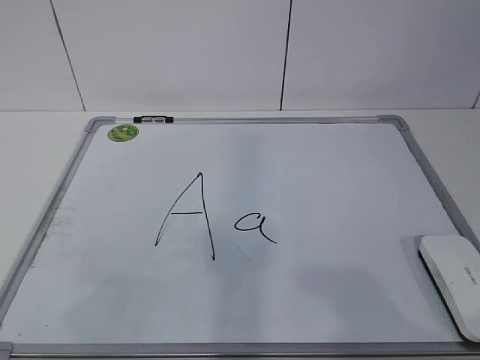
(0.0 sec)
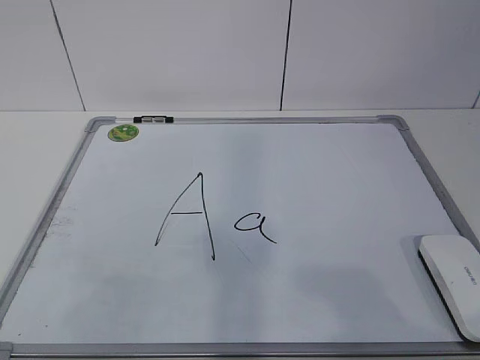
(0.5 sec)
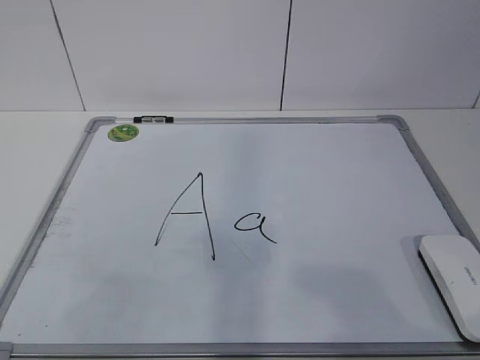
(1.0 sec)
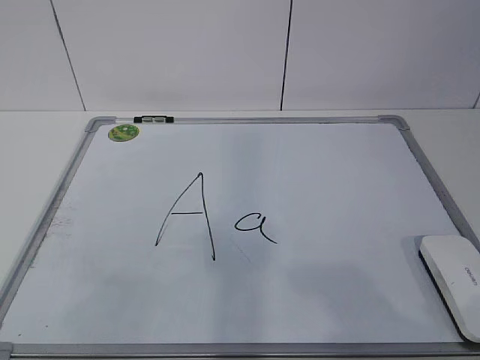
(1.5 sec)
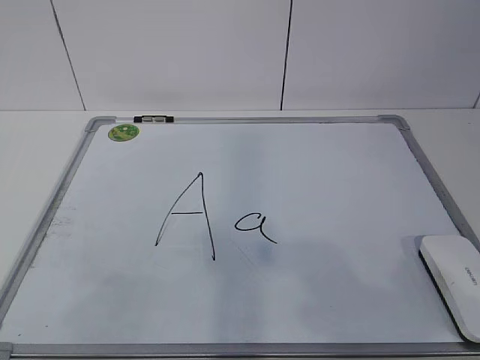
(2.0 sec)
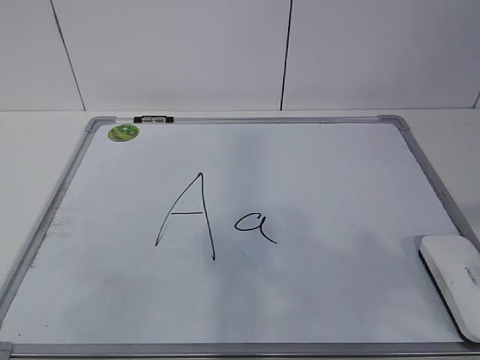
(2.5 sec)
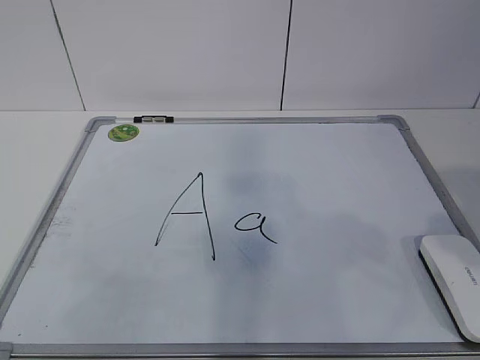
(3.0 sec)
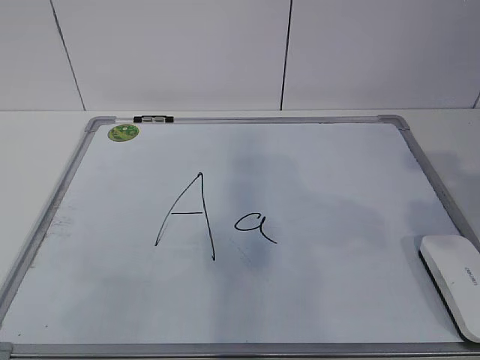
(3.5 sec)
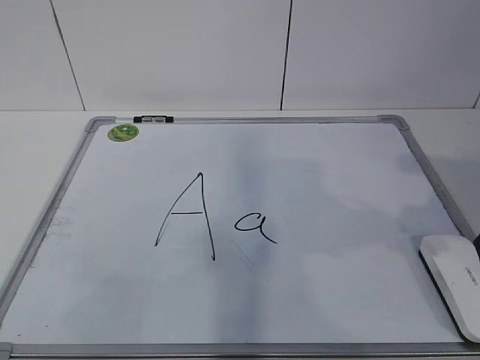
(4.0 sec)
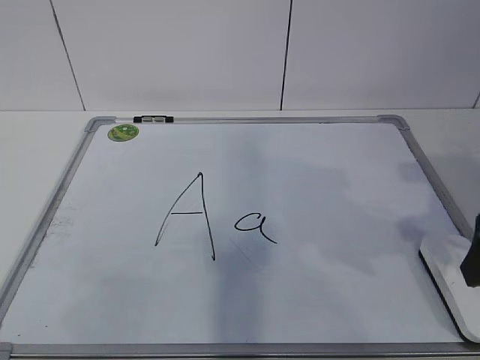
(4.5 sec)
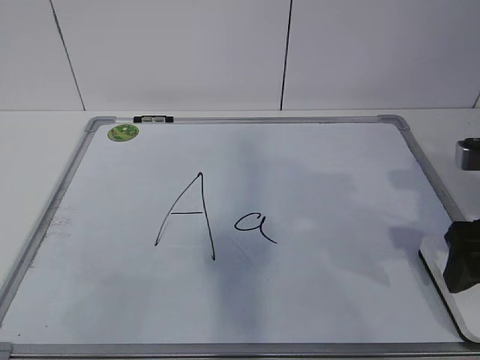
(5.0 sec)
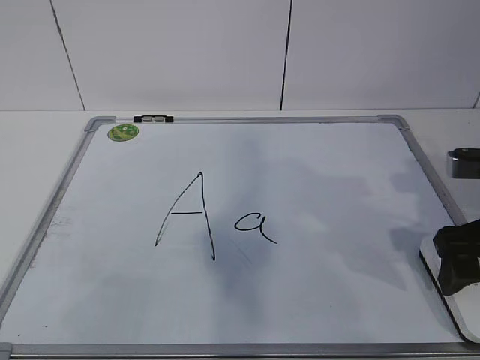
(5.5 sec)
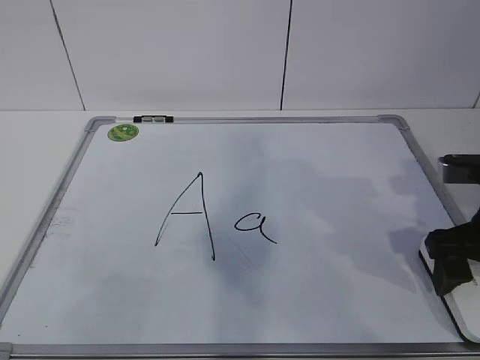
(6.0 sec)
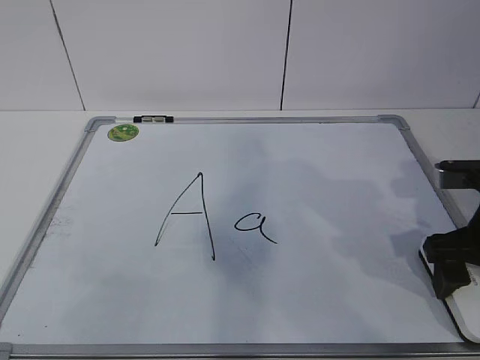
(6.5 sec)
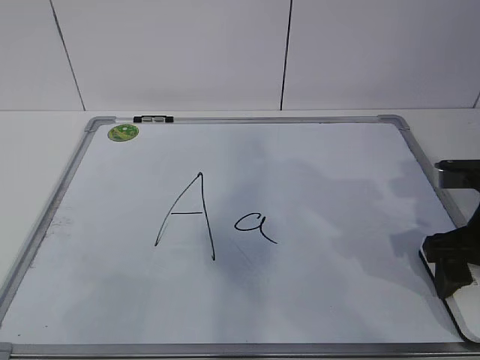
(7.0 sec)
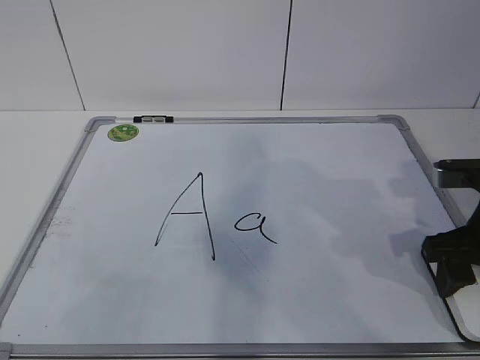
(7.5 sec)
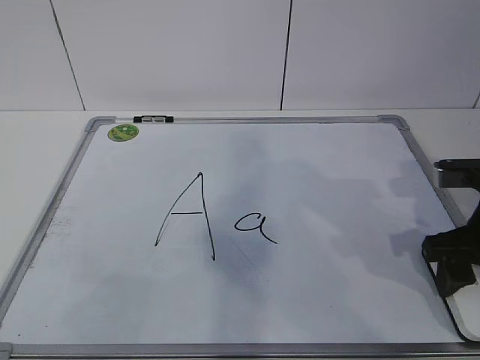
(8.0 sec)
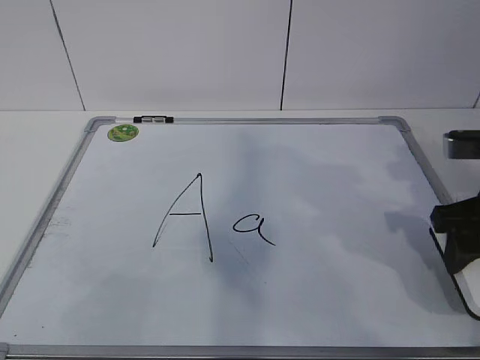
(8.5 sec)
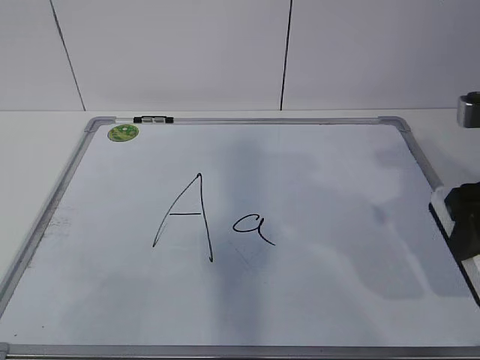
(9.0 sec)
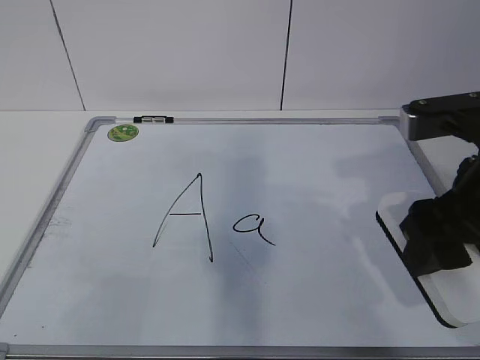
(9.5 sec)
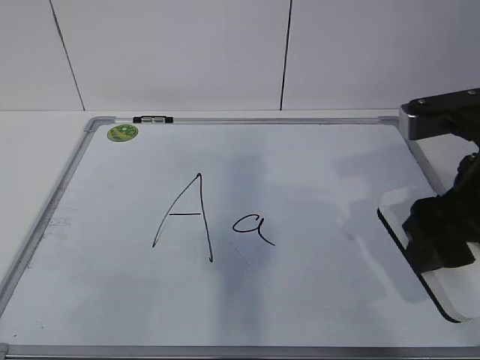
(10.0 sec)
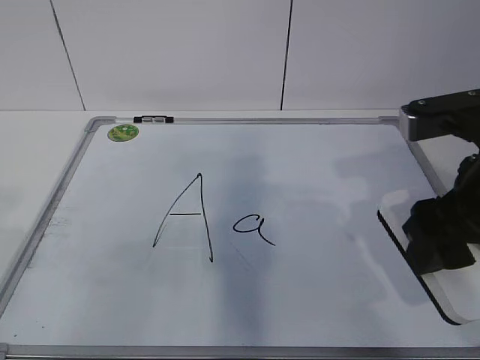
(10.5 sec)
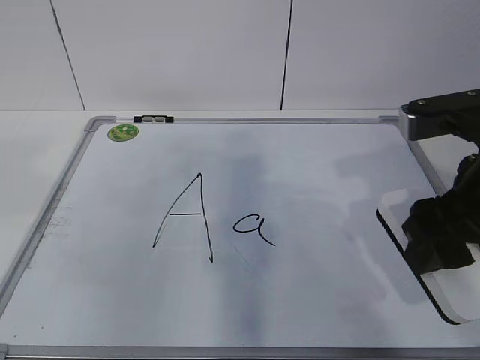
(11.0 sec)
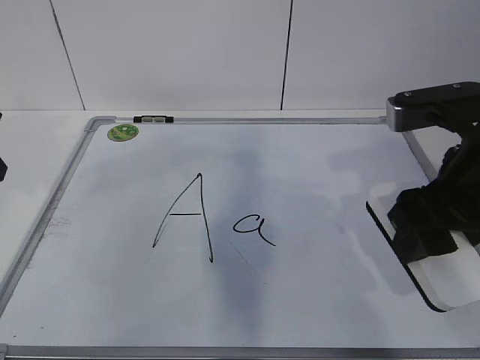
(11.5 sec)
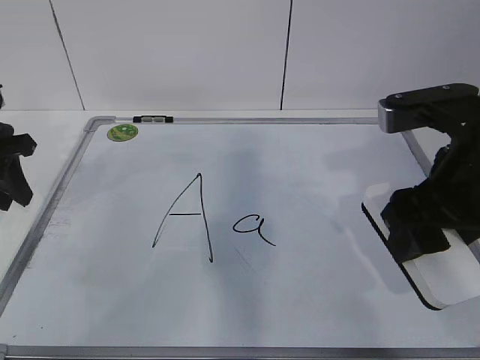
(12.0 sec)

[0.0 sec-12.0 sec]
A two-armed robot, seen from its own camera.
Task of the whole recording: pick up the eraser on the blackboard and erase the letter "a".
Step, 6.5 sec to 10.5 sec: Hold the drawing board steady with your left hand.
2.0 sec to 4.0 sec: The right gripper shifts approximately 20 cm forward, and opens up.
4.0 sec to 6.0 sec: The right gripper goes roughly 10 cm downward and forward.
6.0 sec to 8.0 sec: The right gripper closes up.
8.0 sec to 10.0 sec: The right gripper moves upward and to the left, roughly 10 cm.
10.0 sec to 12.0 sec: The left gripper heads forward, covering approximately 35 cm.

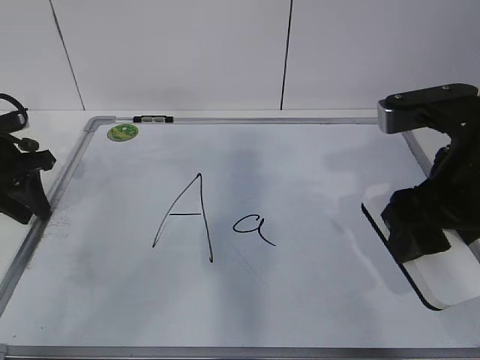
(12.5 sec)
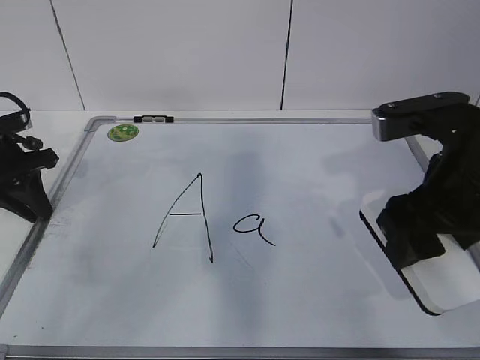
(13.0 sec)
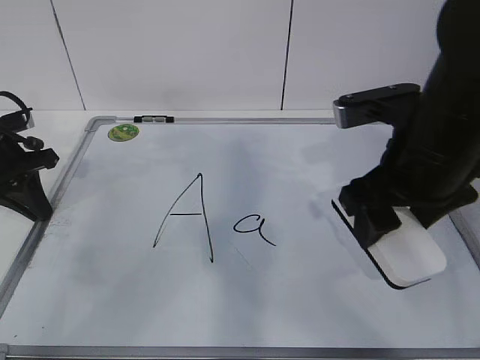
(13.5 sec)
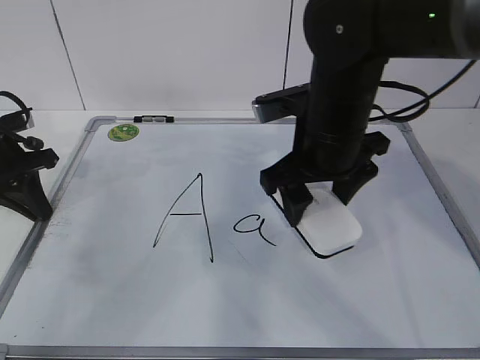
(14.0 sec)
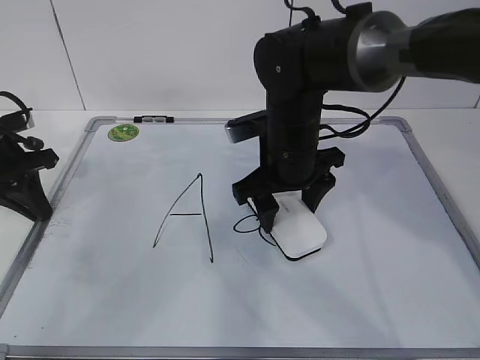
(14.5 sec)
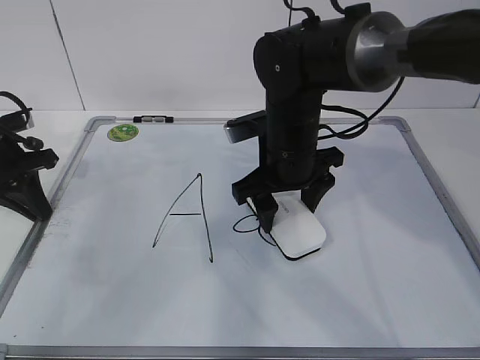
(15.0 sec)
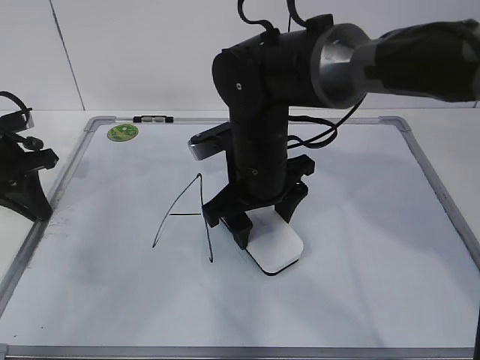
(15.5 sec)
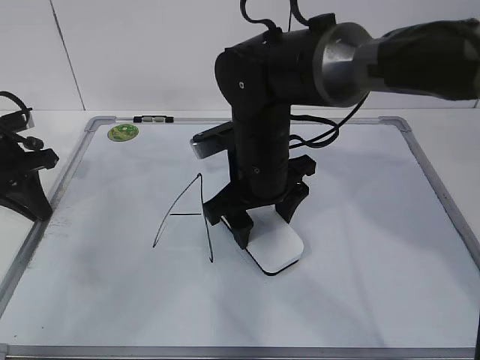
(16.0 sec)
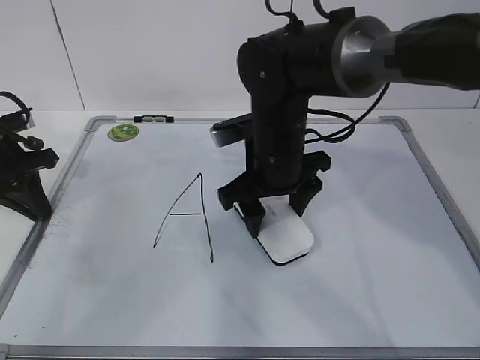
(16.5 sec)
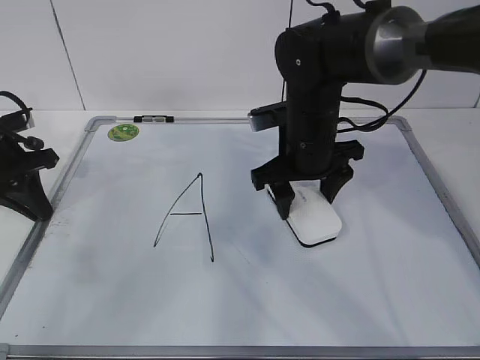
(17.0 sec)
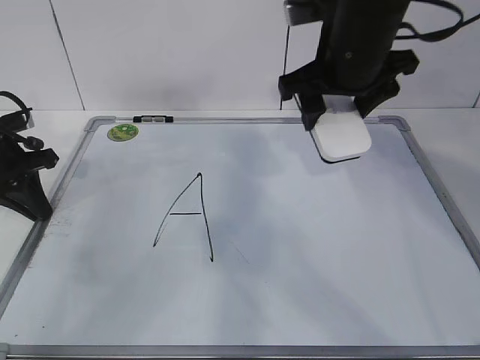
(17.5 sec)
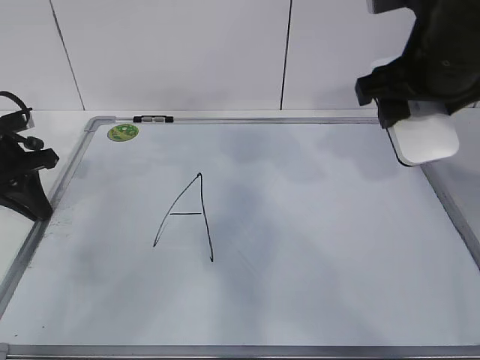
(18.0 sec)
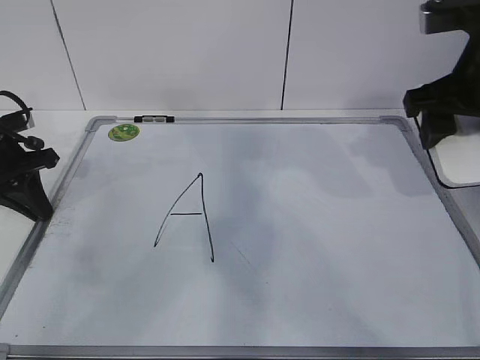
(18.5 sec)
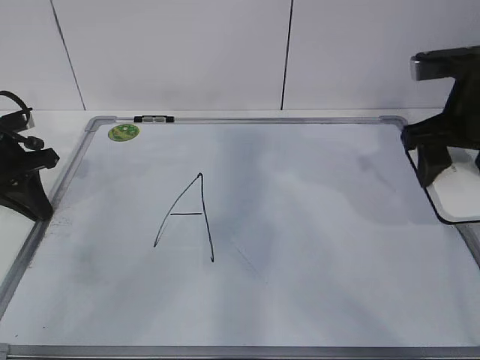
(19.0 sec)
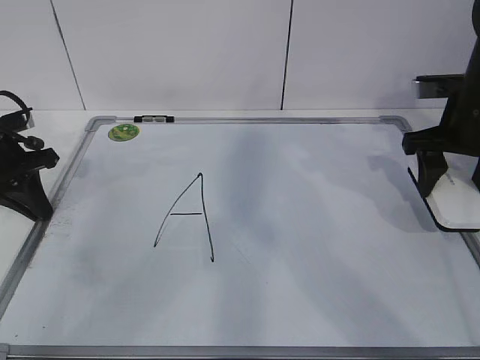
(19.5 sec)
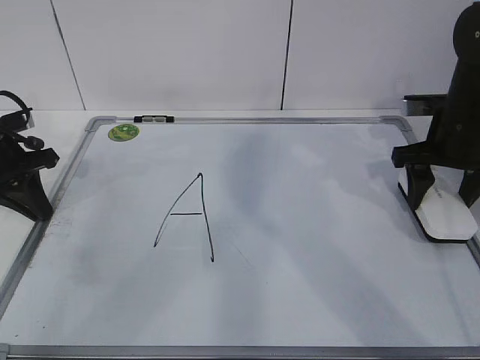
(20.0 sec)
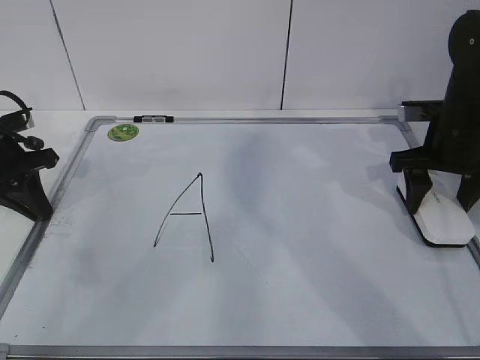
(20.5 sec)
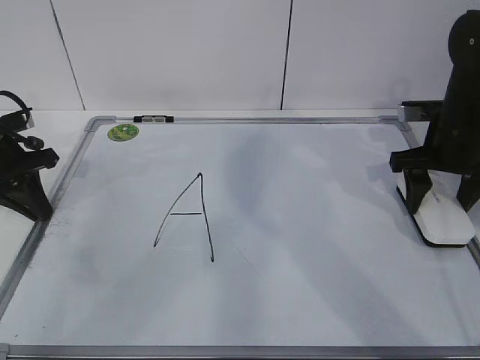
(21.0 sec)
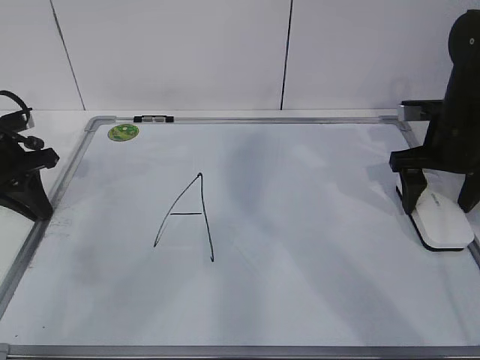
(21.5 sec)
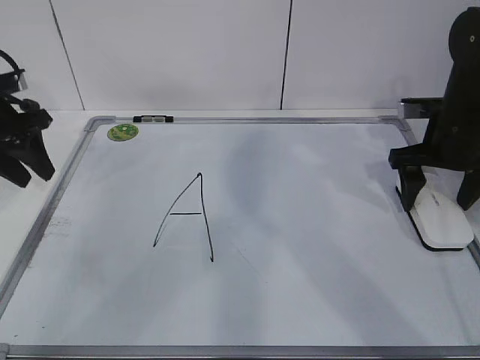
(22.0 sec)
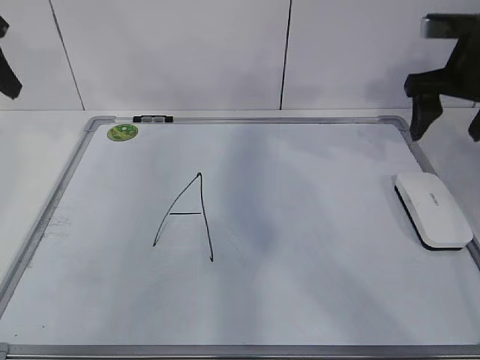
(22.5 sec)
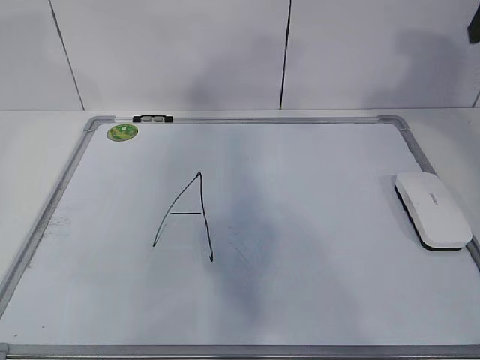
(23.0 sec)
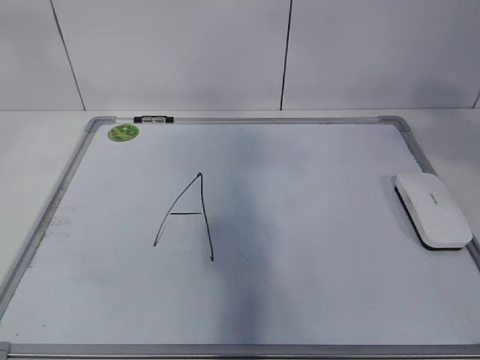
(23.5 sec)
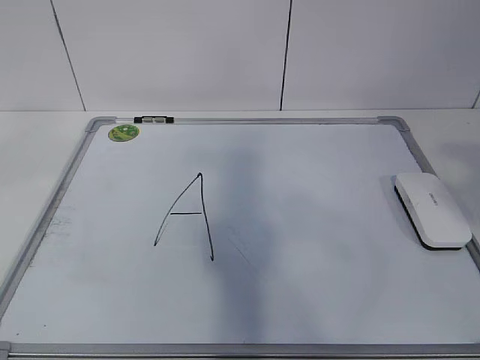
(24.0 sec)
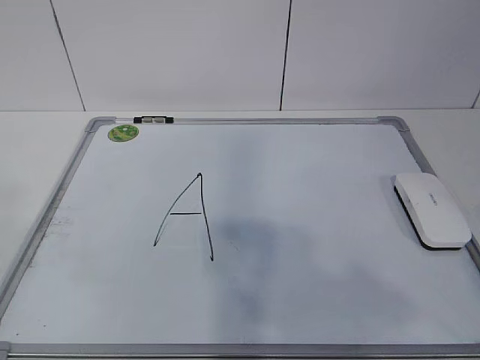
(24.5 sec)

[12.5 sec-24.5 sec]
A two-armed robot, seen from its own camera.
Task of the whole recording: pick up the eraser on the blackboard and erase the letter "a".
Step, 12.5 sec to 14.0 sec: Erase the letter a with your right hand.
Step, 14.5 sec to 17.5 sec: Put down the eraser with your right hand.
12.5 sec to 14.5 sec: The right gripper is displaced forward, to the left and downward by about 20 cm. Meanwhile the left gripper closes its fingers.
14.5 sec to 16.5 sec: The grippers stay close to where they were, moving slightly.
16.5 sec to 18.5 sec: The right gripper is displaced to the right and upward by some 20 cm.
18.5 sec to 20.5 sec: The right gripper shifts approximately 15 cm downward and forward.
20.5 sec to 22.5 sec: The right gripper travels upward by about 10 cm, and opens up. Meanwhile the left gripper moves upward, approximately 15 cm, and opens up.
22.5 sec to 24.5 sec: The two grippers go roughly 40 cm backward. The right gripper closes.

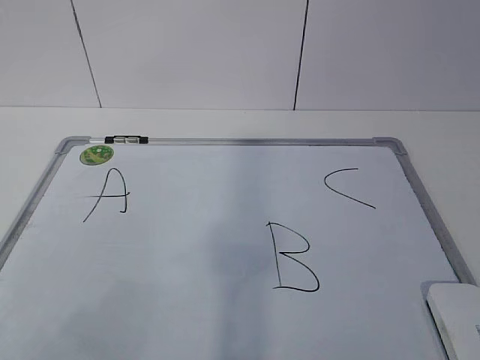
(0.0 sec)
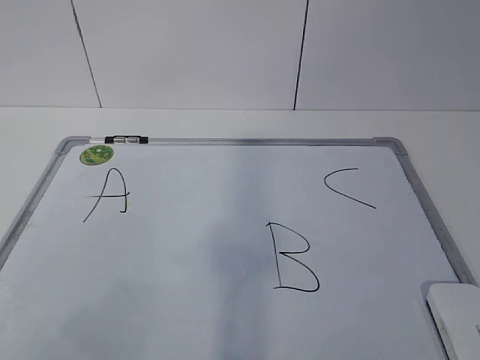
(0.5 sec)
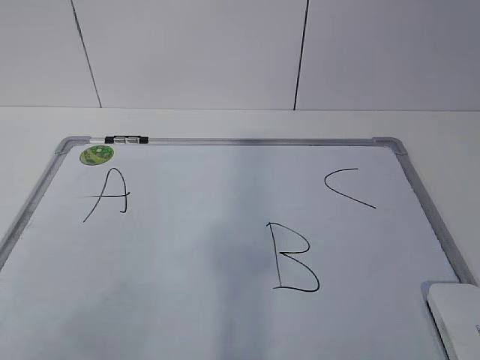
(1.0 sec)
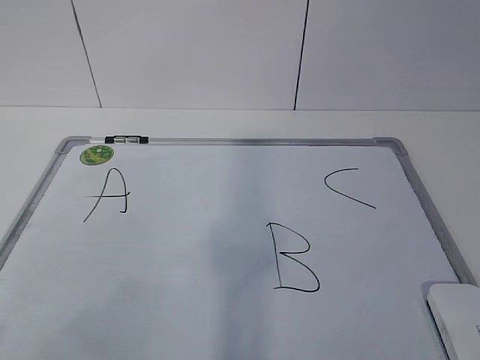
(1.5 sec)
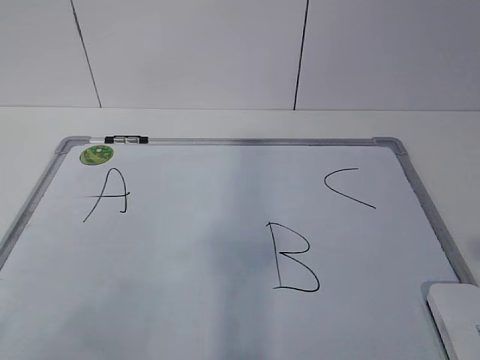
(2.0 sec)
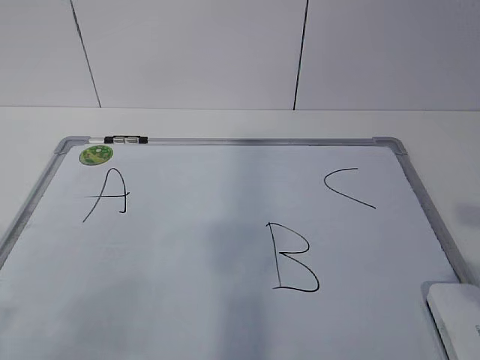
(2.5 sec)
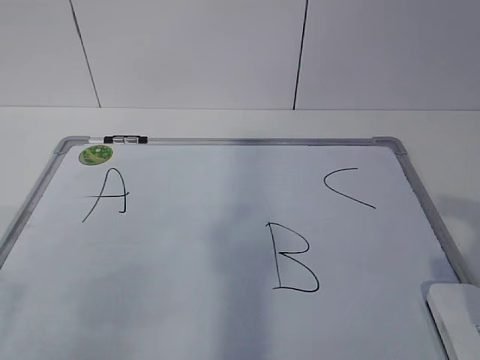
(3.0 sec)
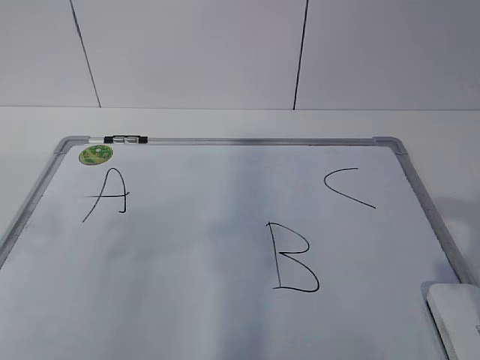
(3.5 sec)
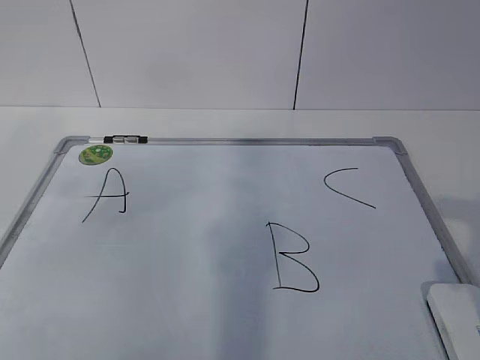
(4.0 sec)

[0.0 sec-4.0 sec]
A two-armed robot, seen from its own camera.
Task of the whole recording: pick up the eraser on the blackboard and erase the letter "B".
2.0 sec to 4.0 sec: The left gripper moves forward, about 25 cm.
